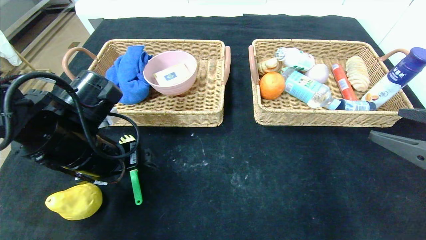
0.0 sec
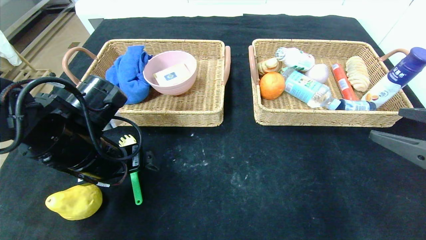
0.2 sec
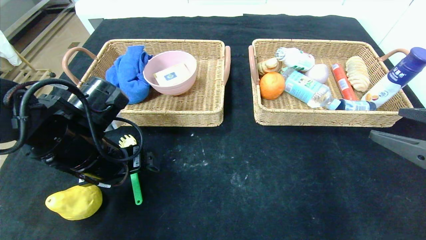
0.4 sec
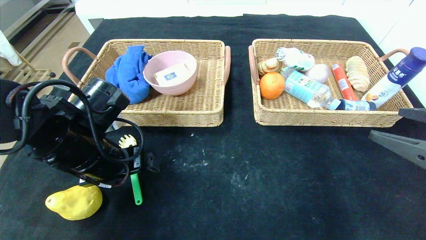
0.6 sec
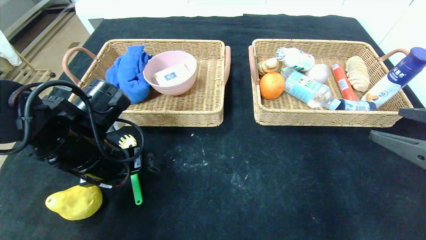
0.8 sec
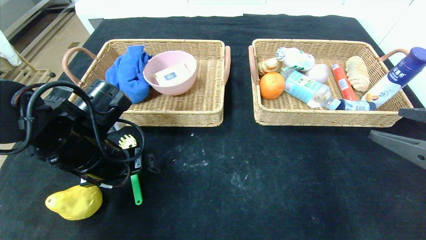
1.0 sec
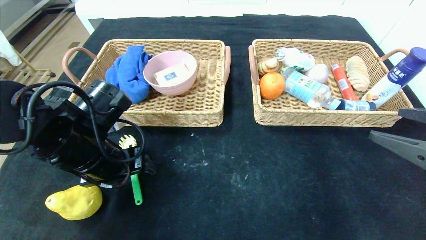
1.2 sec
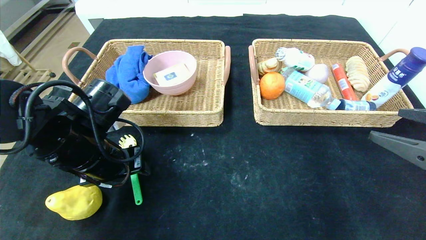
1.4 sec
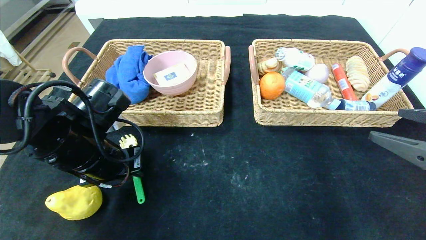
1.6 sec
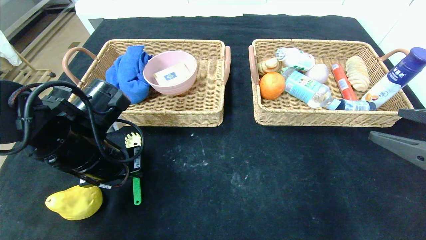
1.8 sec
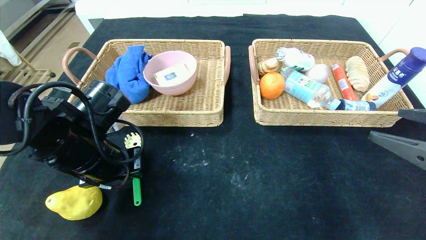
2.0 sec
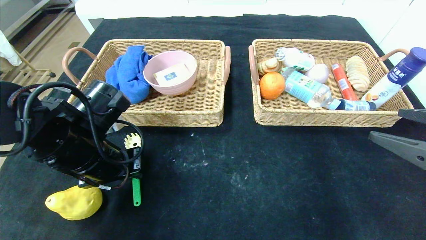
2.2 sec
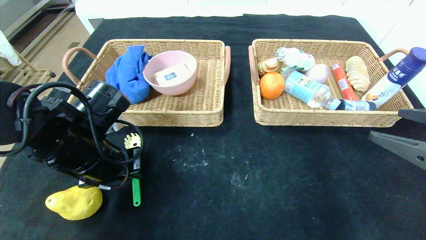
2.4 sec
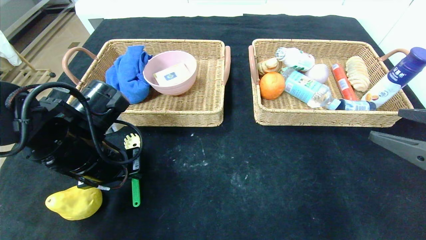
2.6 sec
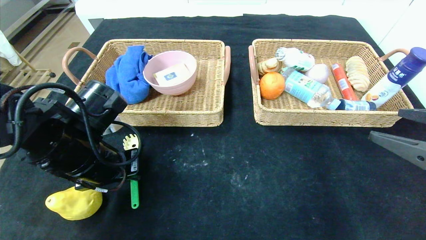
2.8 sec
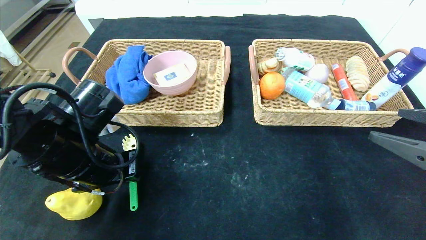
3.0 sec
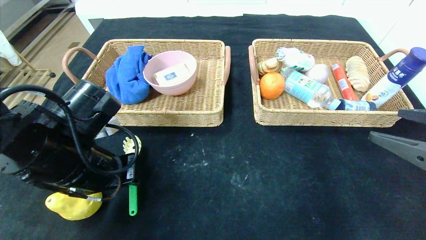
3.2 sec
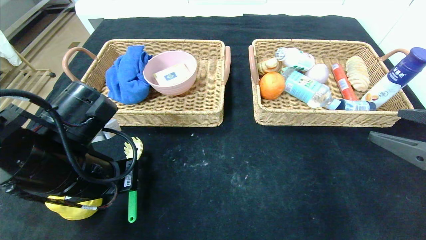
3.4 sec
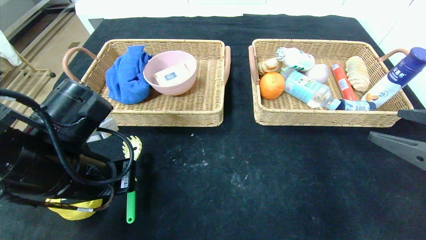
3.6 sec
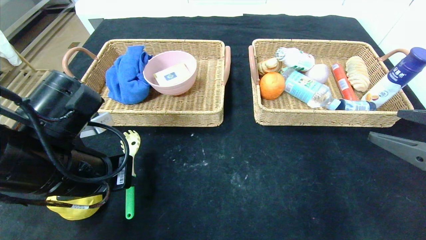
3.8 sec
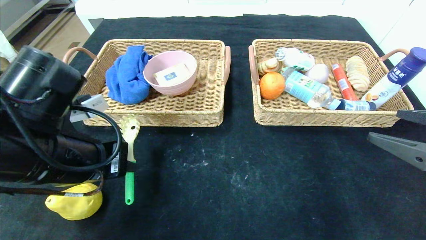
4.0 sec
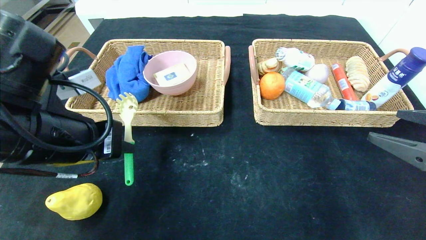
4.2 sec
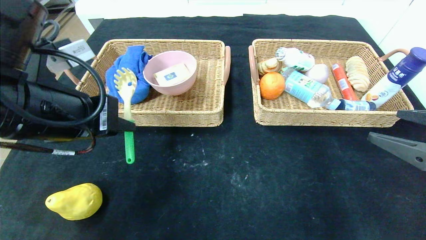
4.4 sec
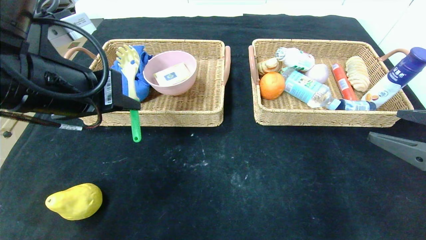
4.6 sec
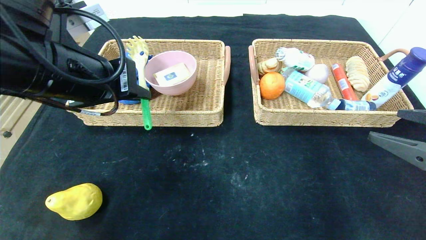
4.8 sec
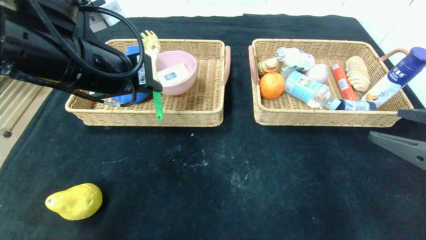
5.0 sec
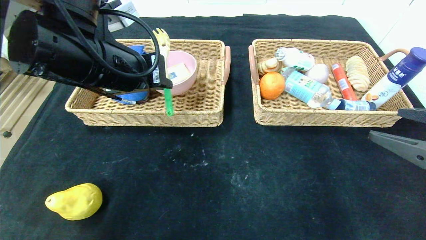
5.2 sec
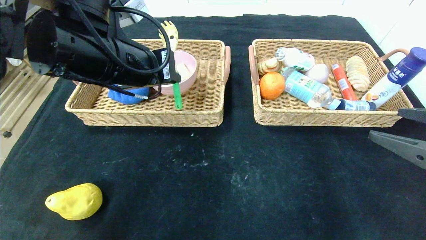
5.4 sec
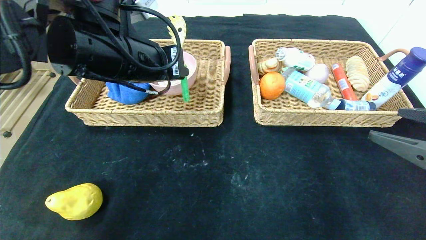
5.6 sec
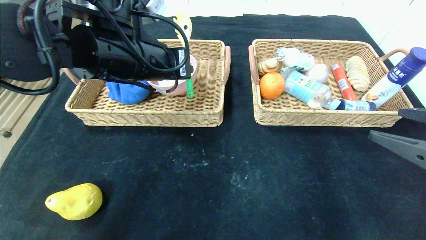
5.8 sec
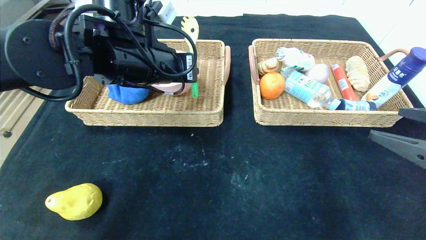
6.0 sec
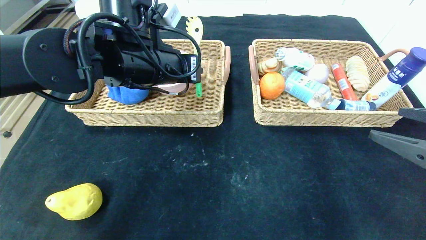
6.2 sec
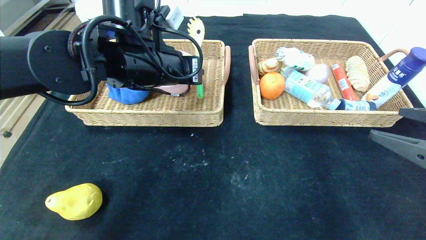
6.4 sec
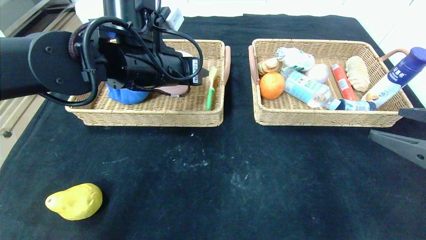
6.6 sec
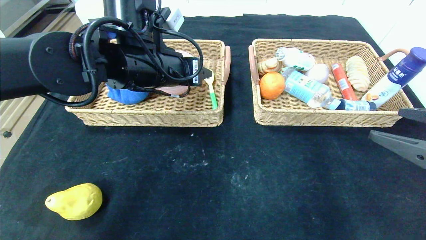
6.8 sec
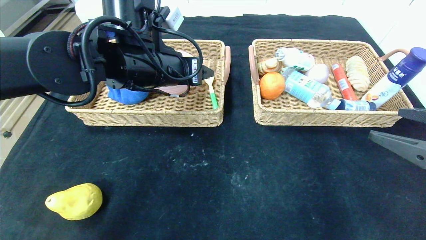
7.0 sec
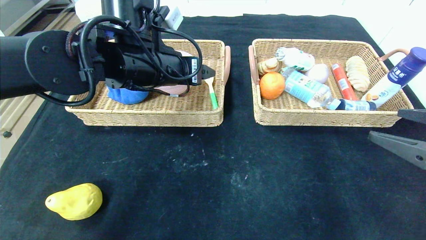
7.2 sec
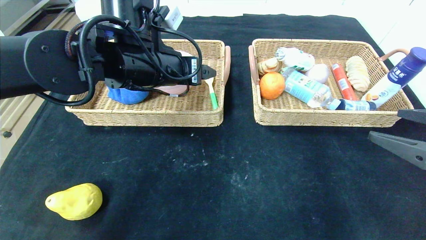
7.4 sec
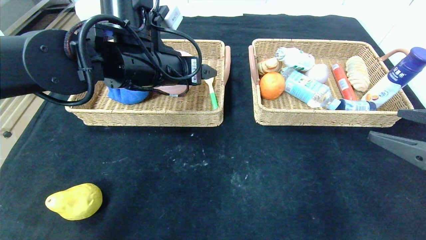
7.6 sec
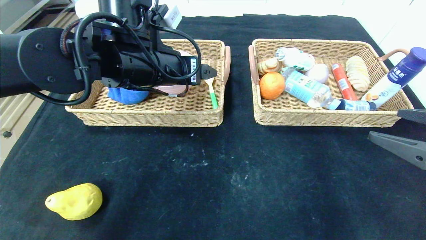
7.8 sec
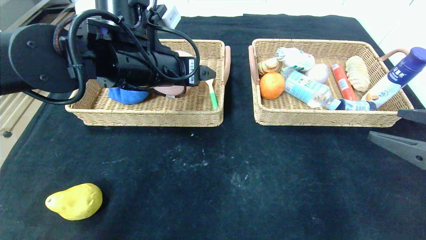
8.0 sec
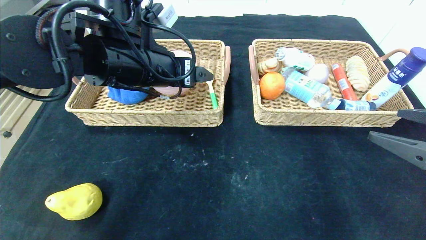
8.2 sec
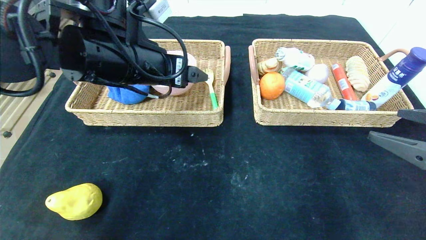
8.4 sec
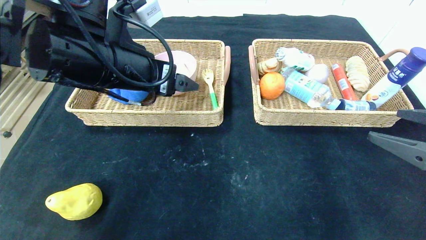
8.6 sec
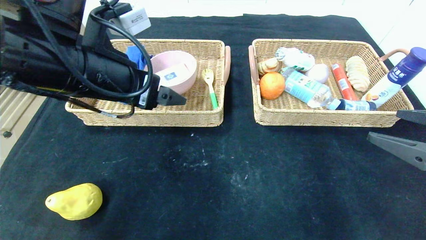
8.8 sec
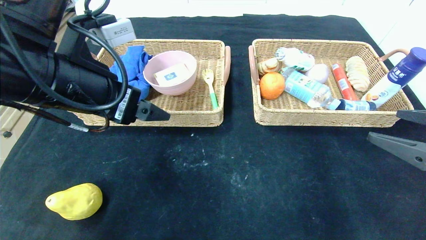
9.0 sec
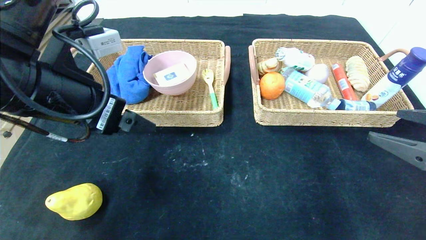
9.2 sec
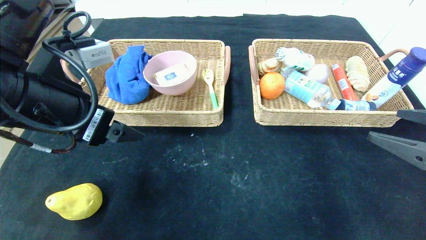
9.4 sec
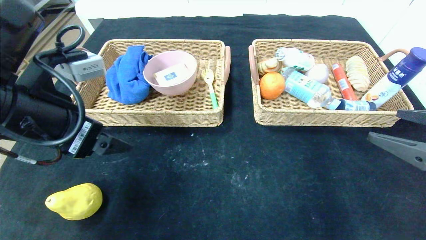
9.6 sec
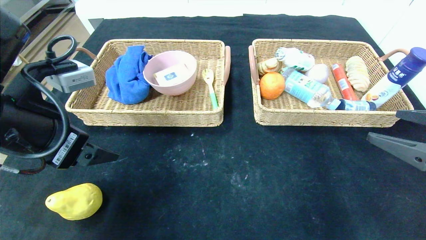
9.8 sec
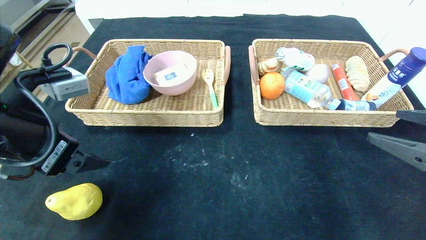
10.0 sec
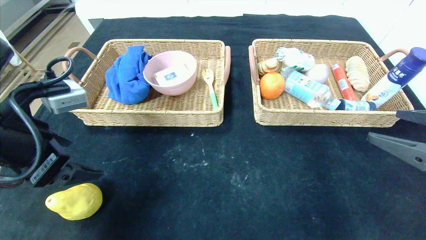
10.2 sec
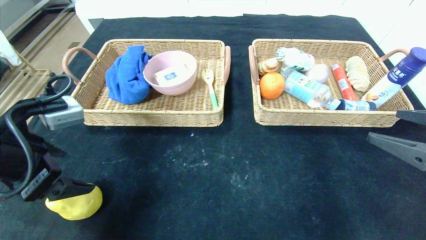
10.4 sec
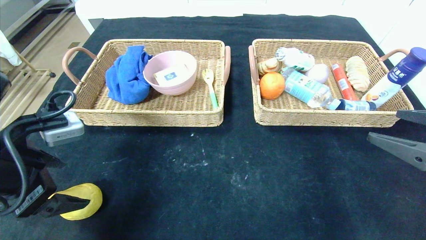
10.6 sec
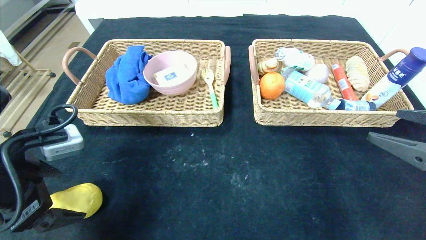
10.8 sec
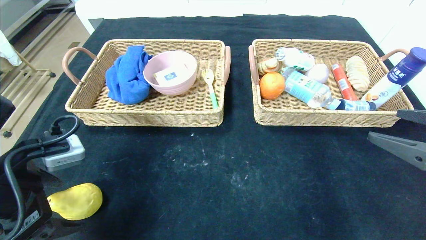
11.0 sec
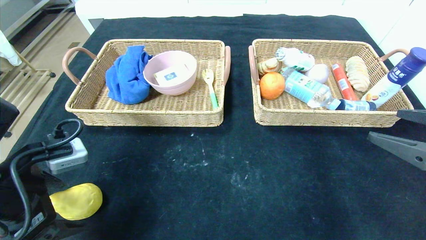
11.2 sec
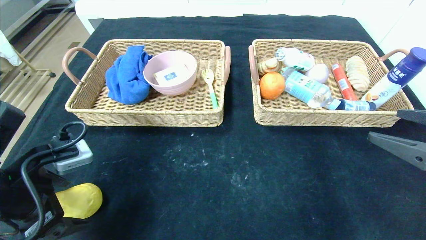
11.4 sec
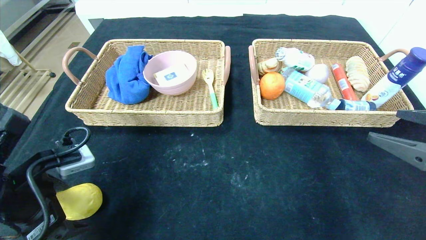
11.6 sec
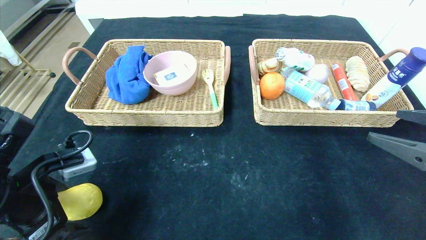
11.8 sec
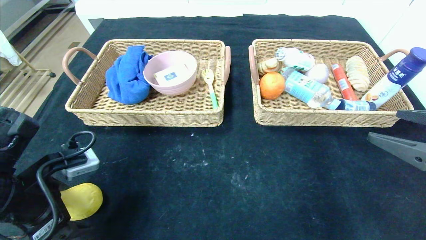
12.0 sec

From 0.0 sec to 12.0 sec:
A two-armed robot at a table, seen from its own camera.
Step, from 0.0 sec to 6.8 sec: Grasp the back scratcher and put it in the left basket.
From 0.0 sec to 1.6 sec: The left gripper closes its fingers.
From 1.6 sec to 3.0 sec: The grippers move only a little.
From 3.0 sec to 4.4 sec: The left gripper travels upward by roughly 10 cm.
From 4.4 sec to 6.0 sec: The left gripper shifts some 15 cm forward and to the right.
From 6.0 sec to 7.6 sec: The left gripper opens.
From 7.6 sec to 9.0 sec: The left gripper goes some 10 cm backward and to the left.
From 9.0 sec to 10.4 sec: The left gripper heads to the left and downward, covering approximately 10 cm.
From 10.4 sec to 12.0 sec: The left gripper is displaced downward by approximately 5 cm.

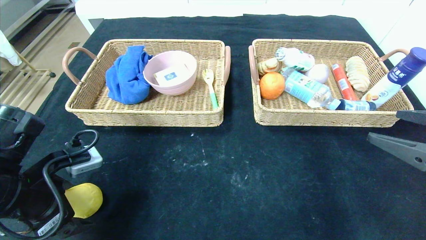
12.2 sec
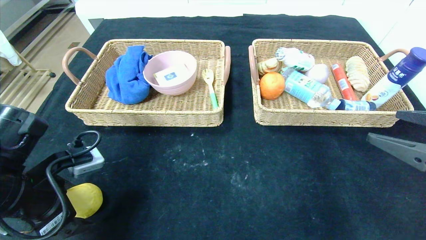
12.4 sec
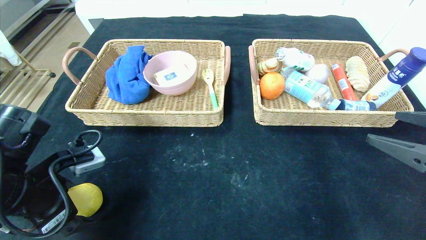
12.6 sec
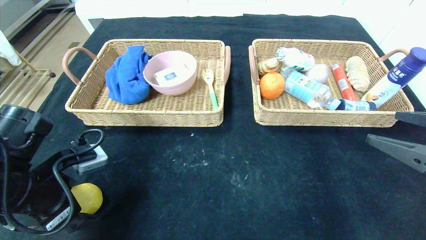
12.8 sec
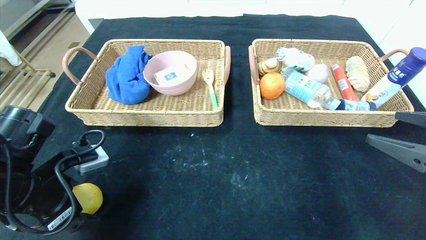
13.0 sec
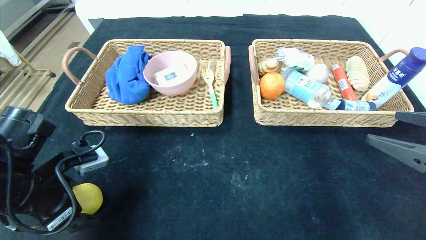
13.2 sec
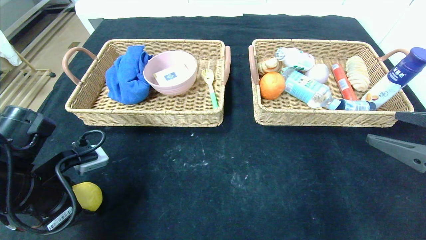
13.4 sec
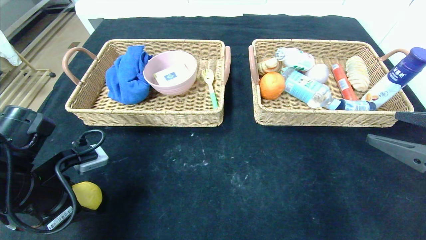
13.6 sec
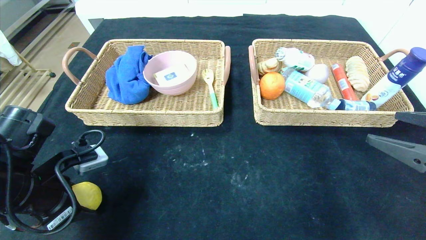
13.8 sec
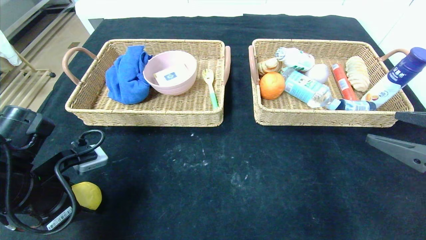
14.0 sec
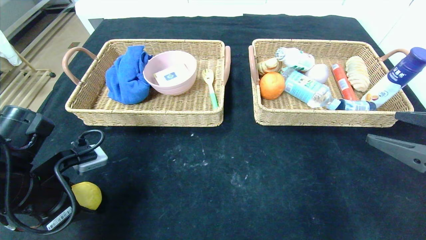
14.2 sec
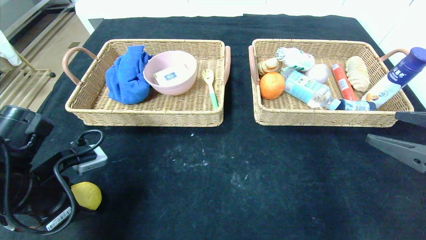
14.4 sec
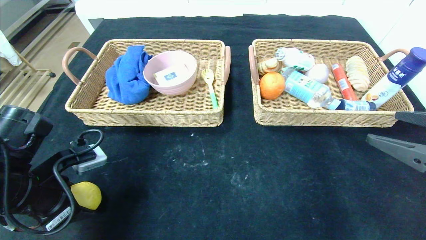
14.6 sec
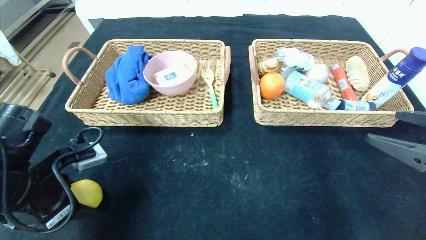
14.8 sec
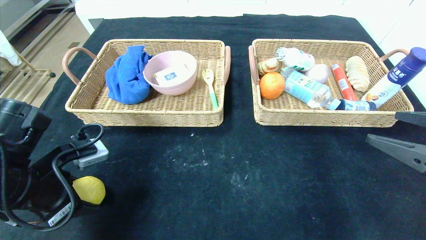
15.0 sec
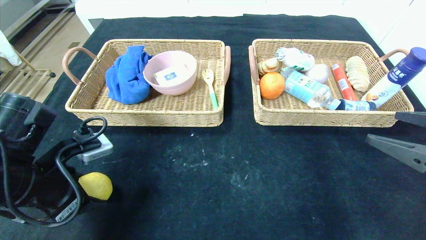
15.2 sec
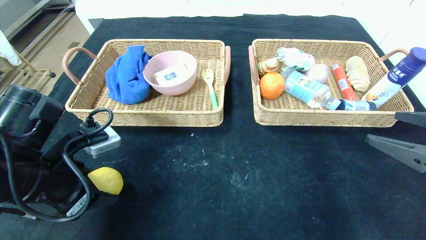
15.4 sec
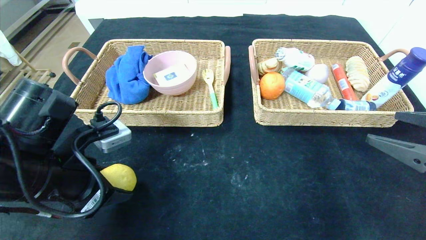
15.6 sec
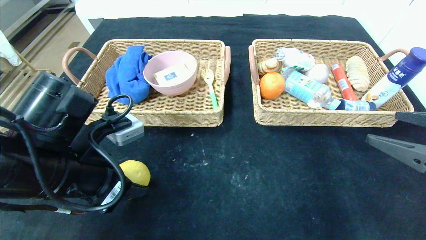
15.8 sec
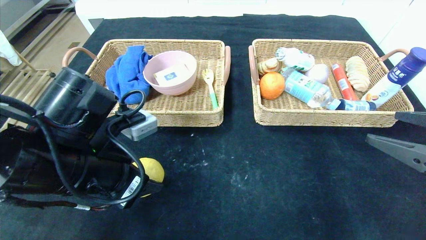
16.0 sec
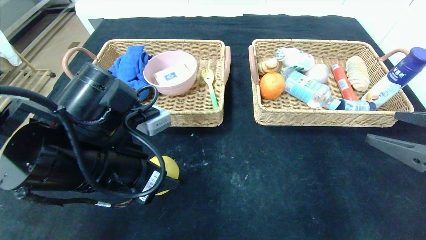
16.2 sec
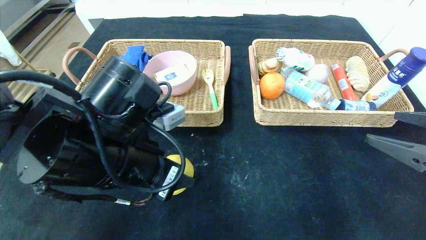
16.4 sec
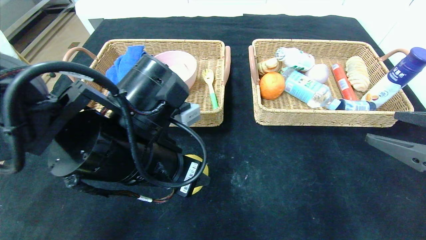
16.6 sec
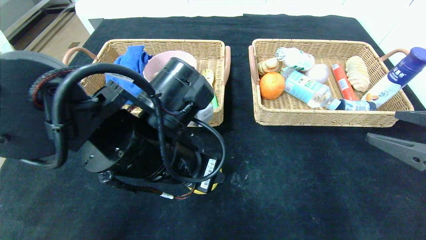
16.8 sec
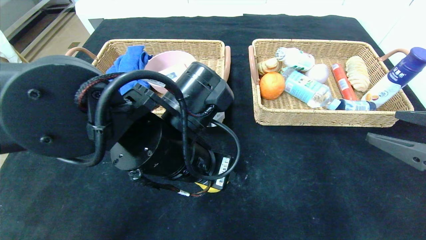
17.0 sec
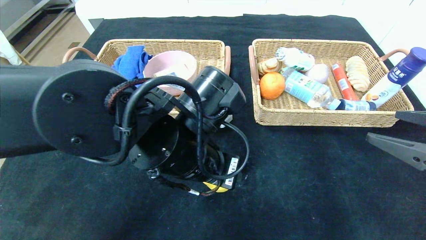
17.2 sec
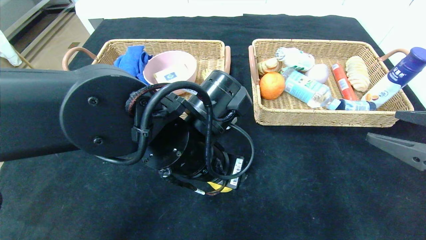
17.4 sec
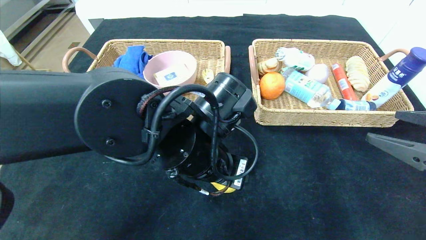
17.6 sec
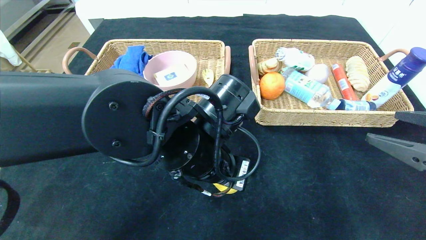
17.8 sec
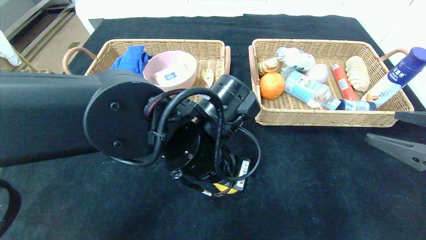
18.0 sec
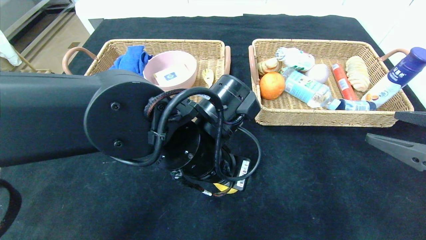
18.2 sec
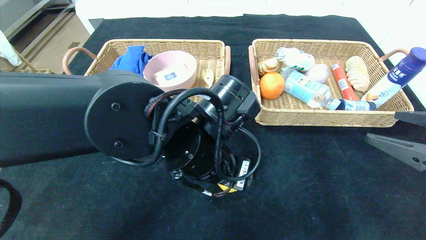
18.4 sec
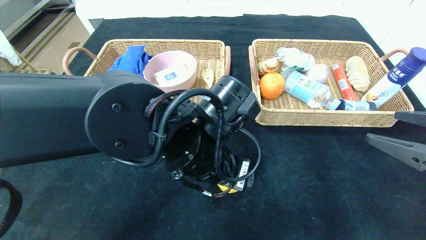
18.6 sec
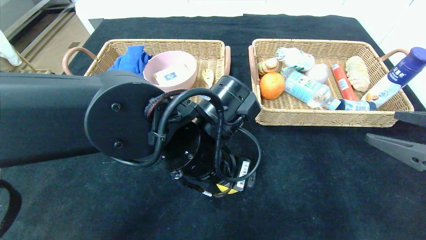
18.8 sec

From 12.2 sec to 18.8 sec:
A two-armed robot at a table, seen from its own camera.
From 12.2 sec to 13.8 sec: The left gripper closes.
From 13.8 sec to 15.4 sec: The grippers stay close to where they were, moving slightly.
From 15.4 sec to 17.2 sec: The left gripper travels to the right by roughly 20 cm.
From 17.2 sec to 18.8 sec: There are only small adjustments of the grippers.
